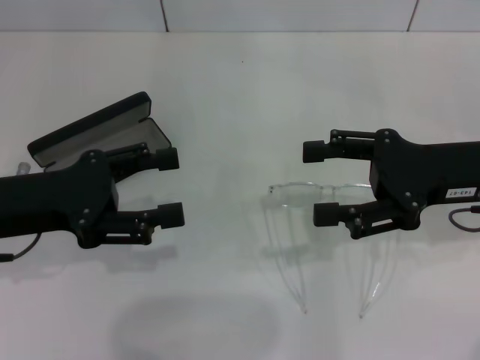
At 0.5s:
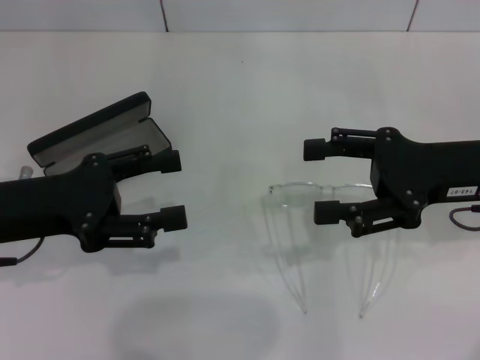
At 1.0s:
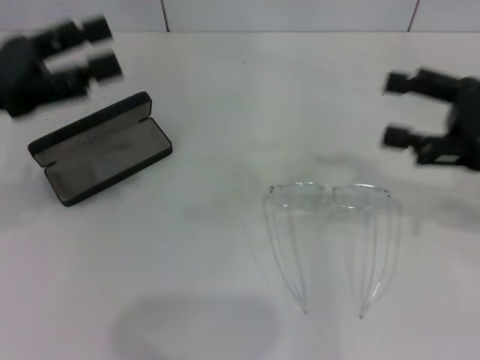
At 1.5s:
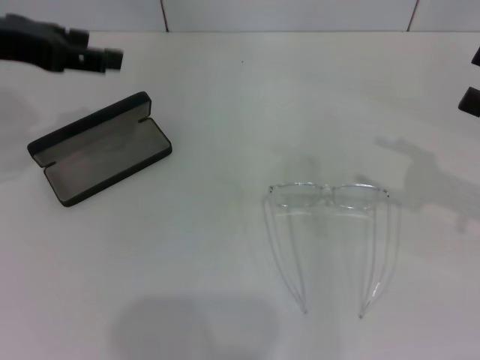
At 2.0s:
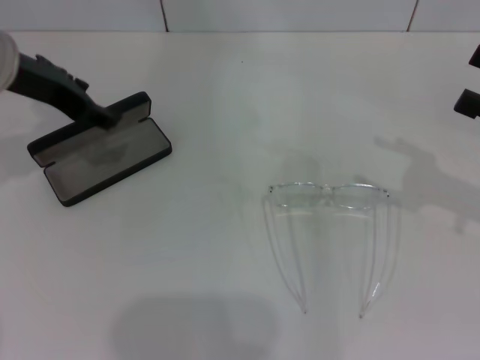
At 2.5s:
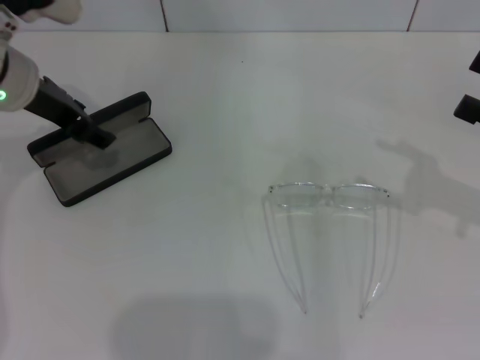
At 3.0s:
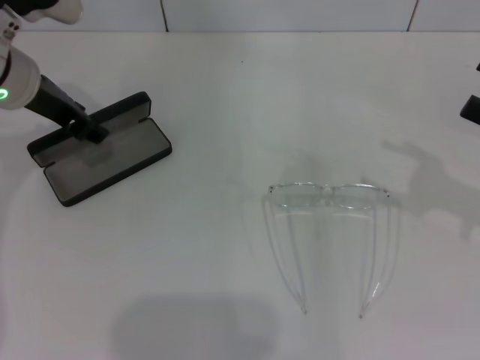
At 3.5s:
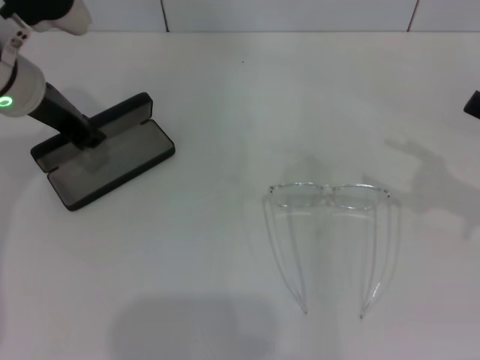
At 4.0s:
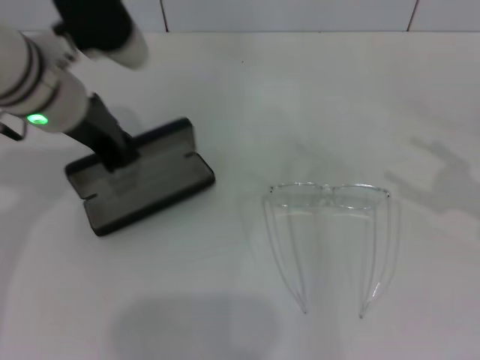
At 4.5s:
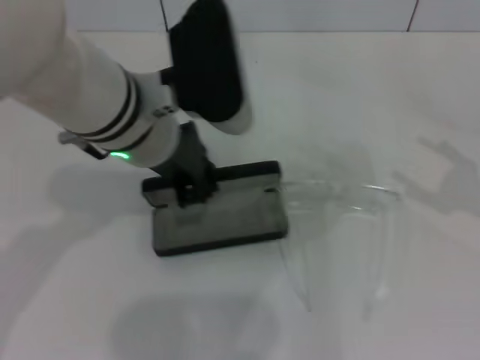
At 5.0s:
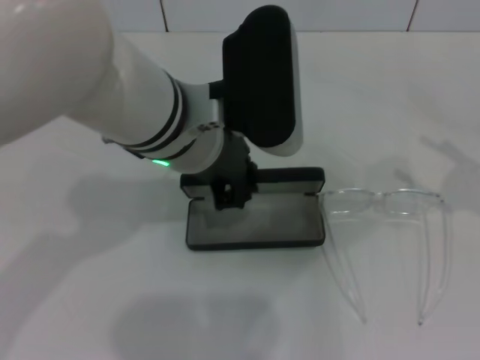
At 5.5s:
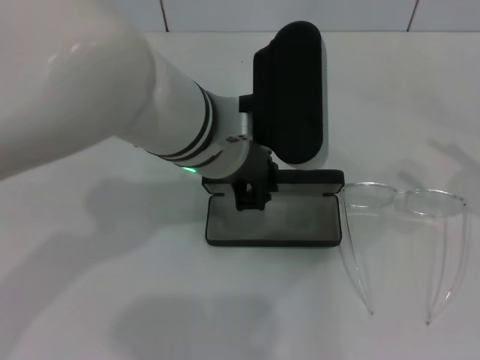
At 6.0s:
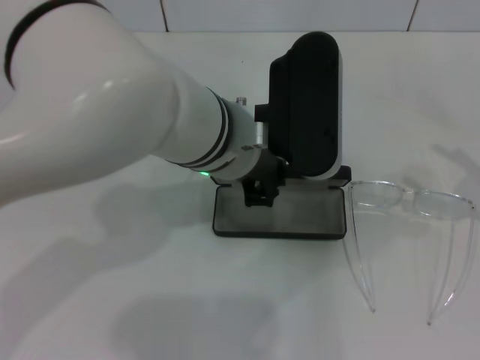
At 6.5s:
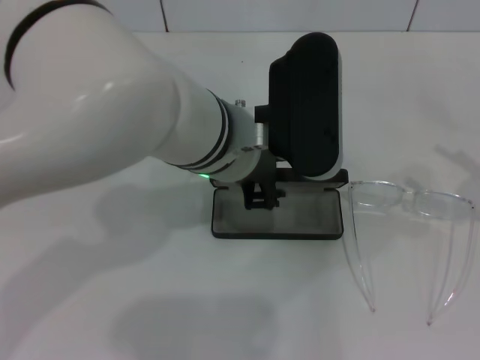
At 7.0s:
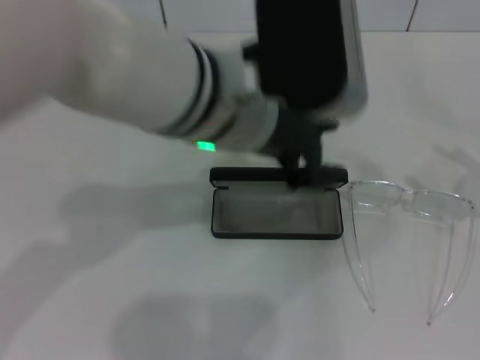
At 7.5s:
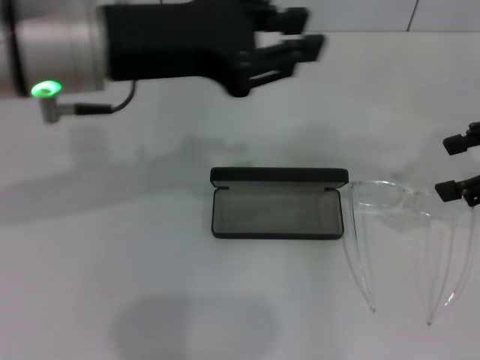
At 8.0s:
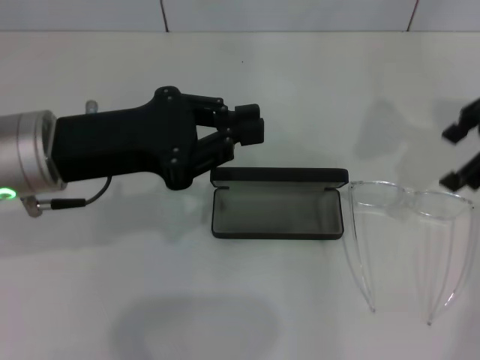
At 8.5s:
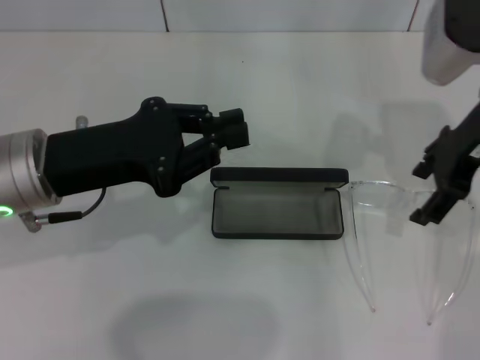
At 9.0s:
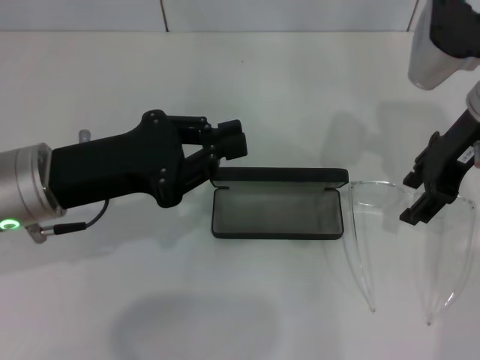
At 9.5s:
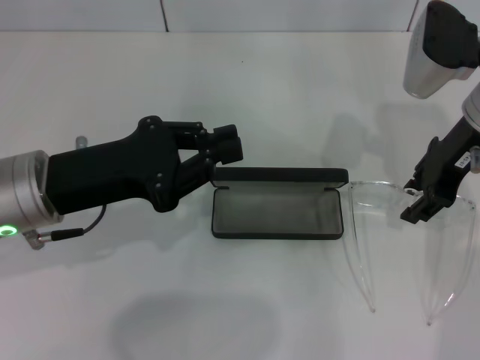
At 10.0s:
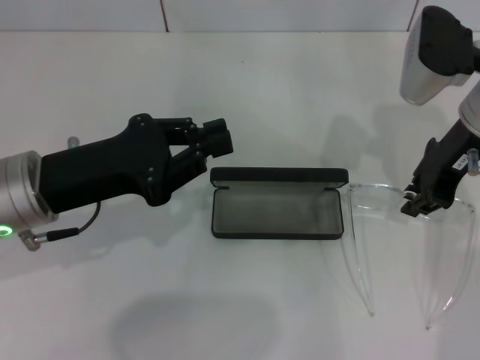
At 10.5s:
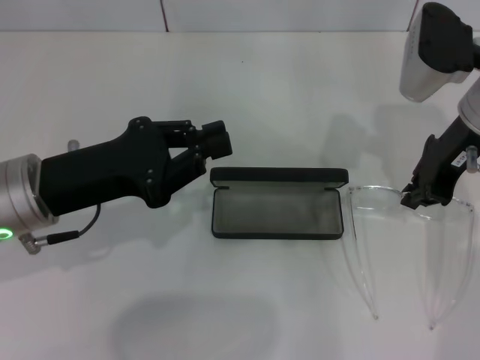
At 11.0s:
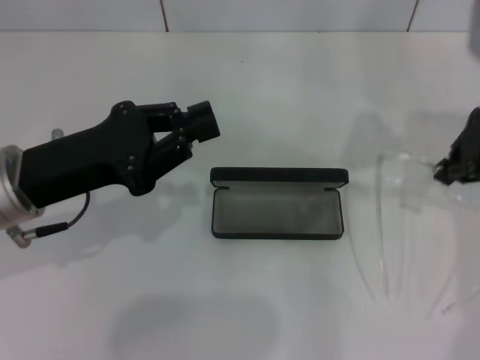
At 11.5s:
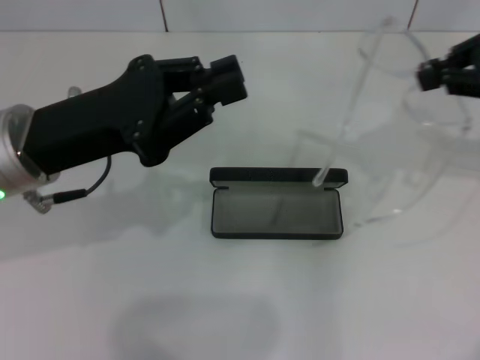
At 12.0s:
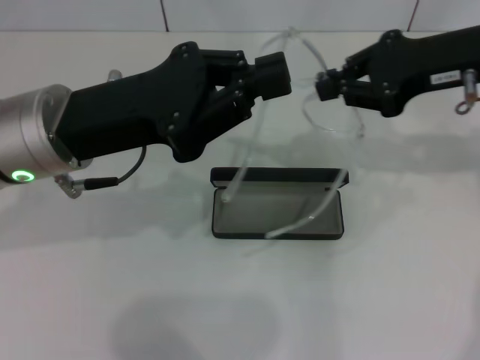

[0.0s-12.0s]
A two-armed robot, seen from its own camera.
Step, 0.0s to 3.5s: Grab the glasses case with your left hand.
Step, 4.0s to 6.5s: Place the glasses case in the center of the table with your left hand.
Step, 7.0s to 10.5s: Grab the eyeglass frame with your right hand.
0.0s to 2.0s: The right gripper is displaced to the right by approximately 10 cm; the left gripper is displaced forward and upward by some 15 cm.
2.0s to 4.0s: The left gripper heads to the right, covering roughly 5 cm, and closes its fingers.
4.0s to 6.0s: The left gripper goes about 15 cm to the right.
6.0s to 8.0s: The right gripper heads upward, forward and to the left, covering roughly 20 cm. Meanwhile the left gripper heads to the left, covering some 15 cm.
8.0s to 10.0s: The right gripper shifts some 10 cm downward and to the left, and closes its fingers.
10.0s to 12.0s: The left gripper ends up approximately 5 cm from where it was, while the right gripper goes roughly 5 cm upward.

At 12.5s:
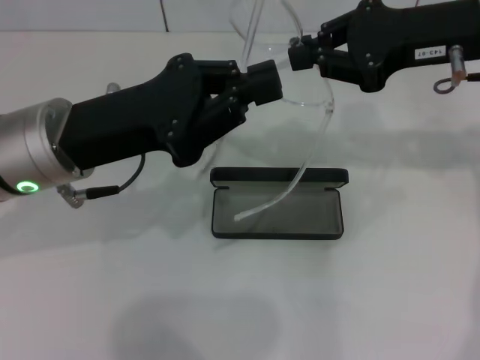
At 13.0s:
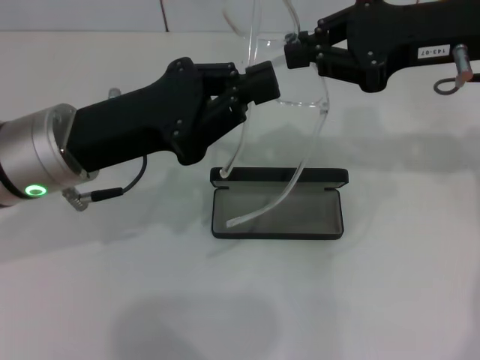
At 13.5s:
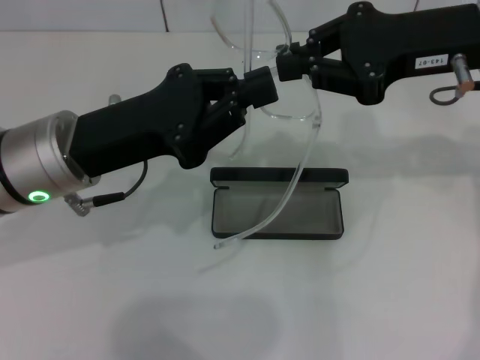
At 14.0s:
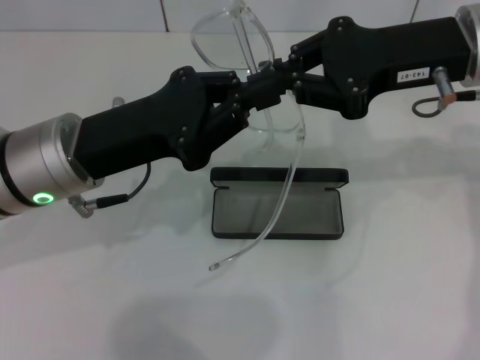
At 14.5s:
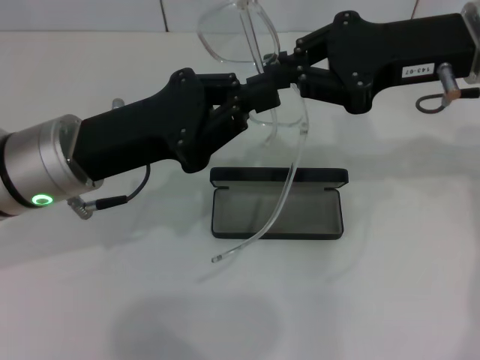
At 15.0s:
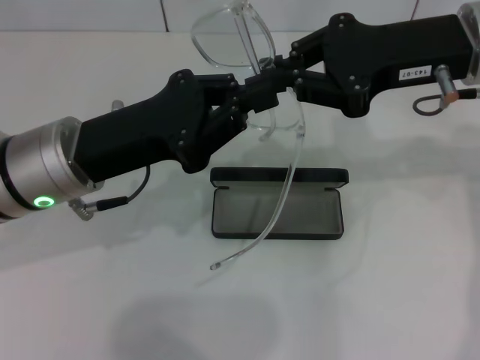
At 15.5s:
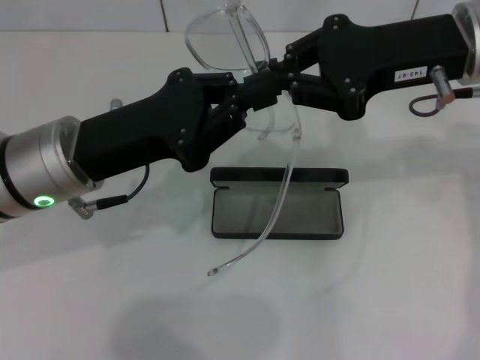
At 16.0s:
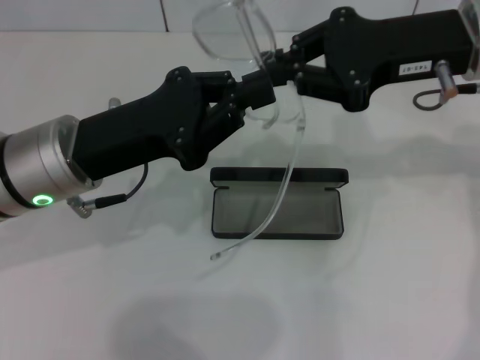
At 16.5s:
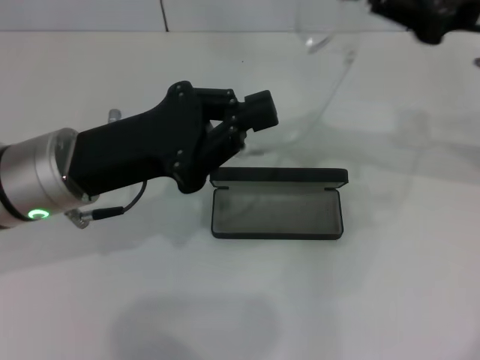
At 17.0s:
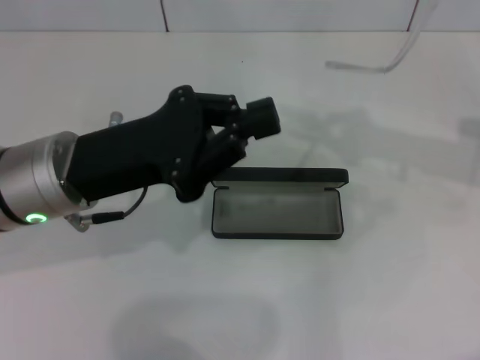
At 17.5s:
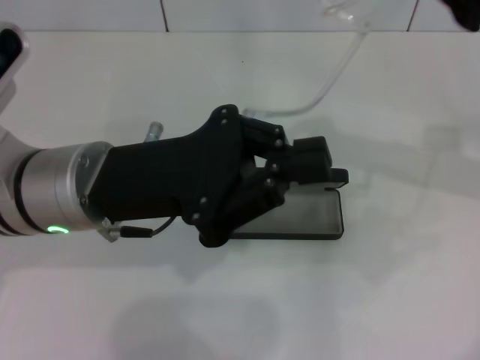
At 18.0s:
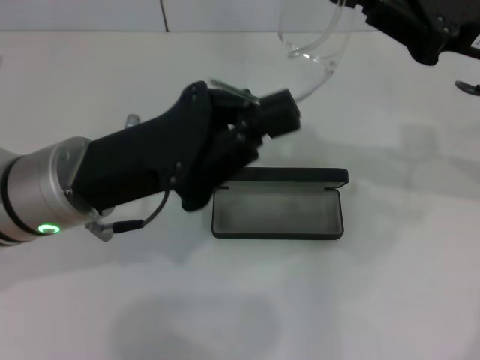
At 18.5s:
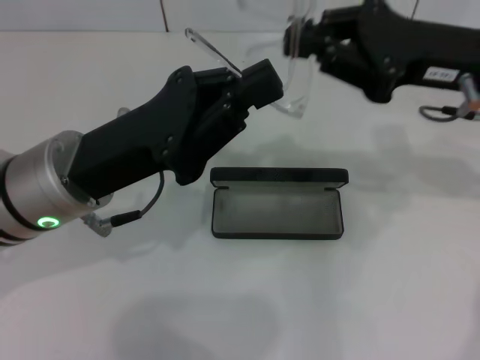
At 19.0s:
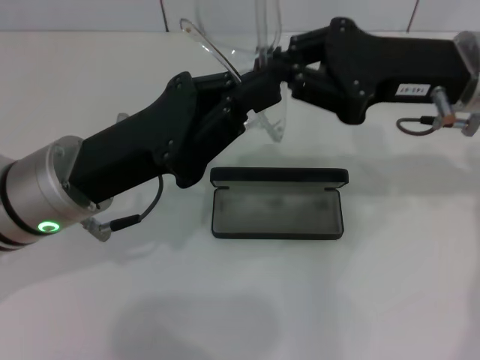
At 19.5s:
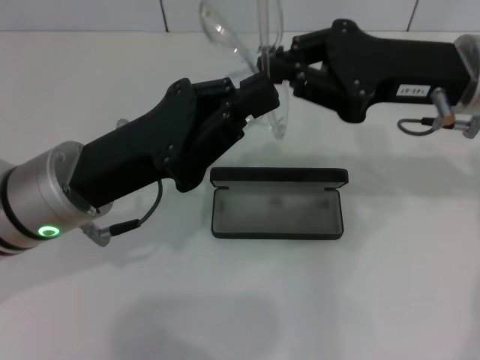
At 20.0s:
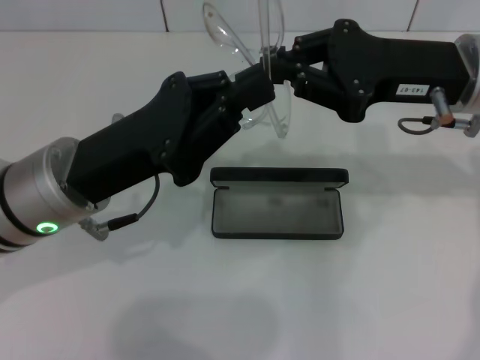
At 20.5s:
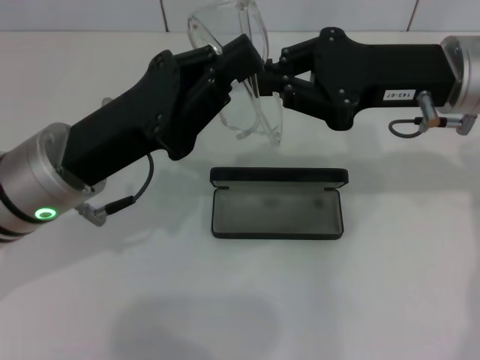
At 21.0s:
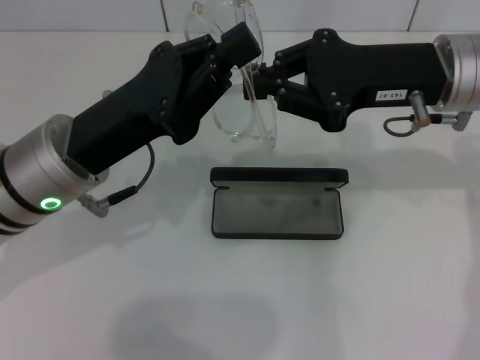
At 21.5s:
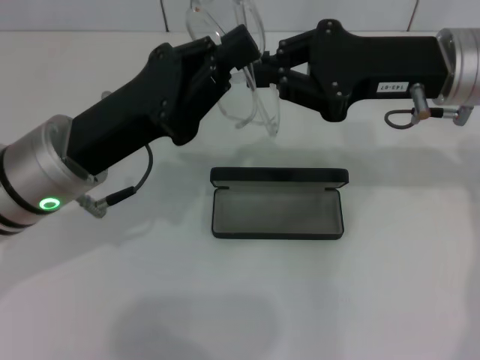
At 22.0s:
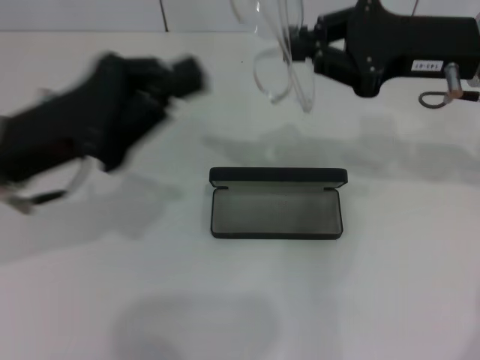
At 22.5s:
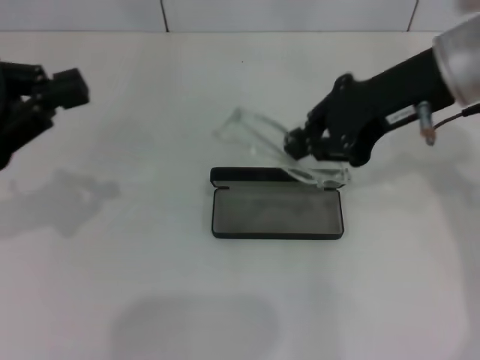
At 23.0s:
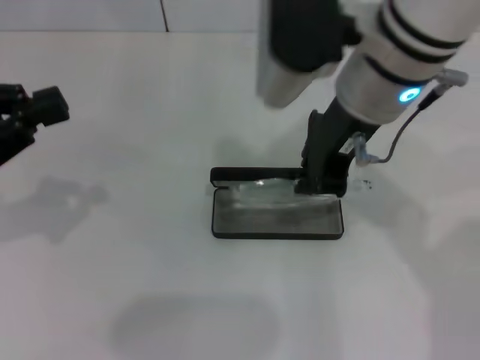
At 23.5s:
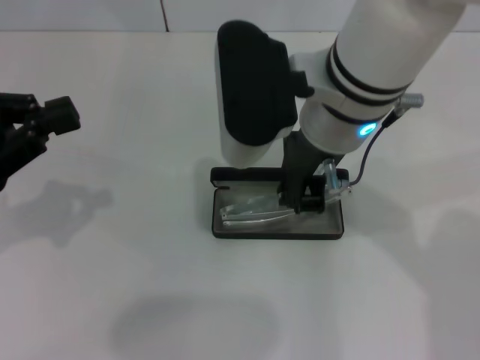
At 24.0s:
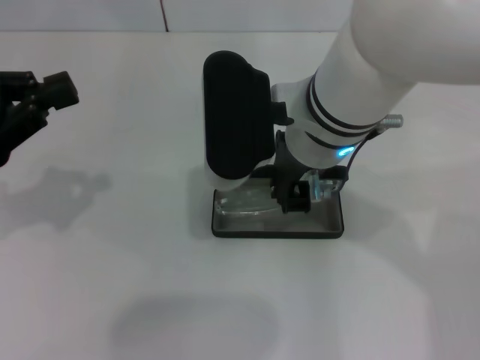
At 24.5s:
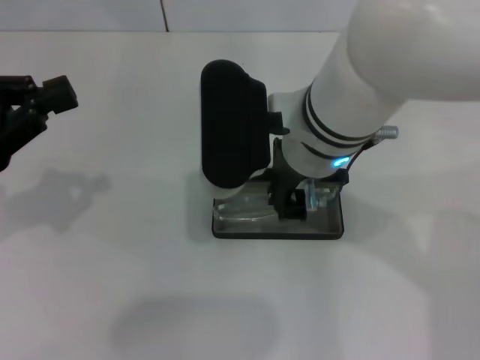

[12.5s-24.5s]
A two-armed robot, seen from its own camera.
Step, 12.5s to 19.5s: Fold the frame with your left hand.
12.5s to 14.5s: The grippers make only small movements.
14.5s to 16.5s: The right gripper shifts some 5 cm to the right.
16.5s to 18.5s: The right gripper shifts by some 5 cm.
18.5s to 20.5s: The grippers move only a little.
20.5s to 22.5s: The left gripper shifts roughly 15 cm to the left.
22.5s to 24.5s: The right gripper shifts about 15 cm to the left.

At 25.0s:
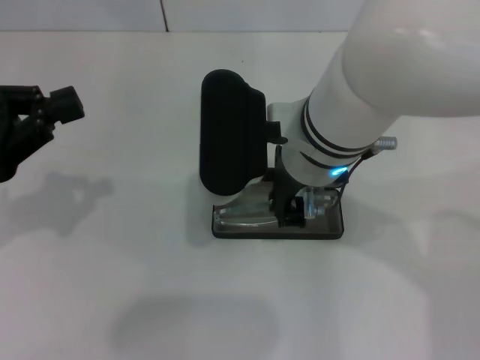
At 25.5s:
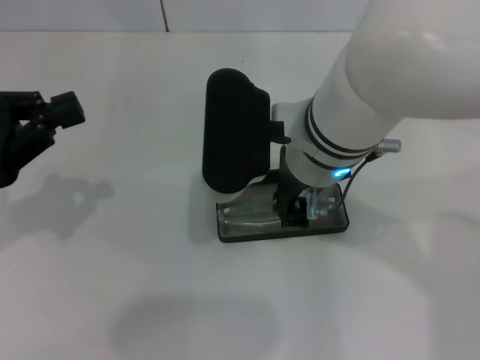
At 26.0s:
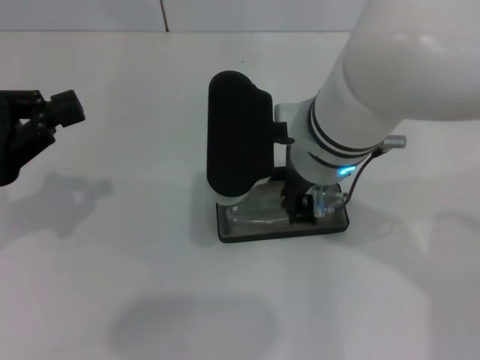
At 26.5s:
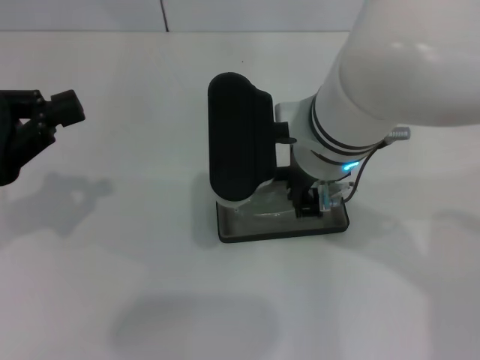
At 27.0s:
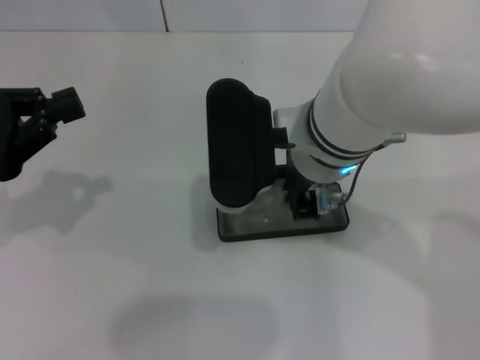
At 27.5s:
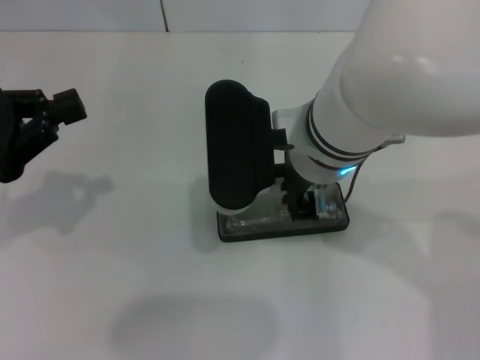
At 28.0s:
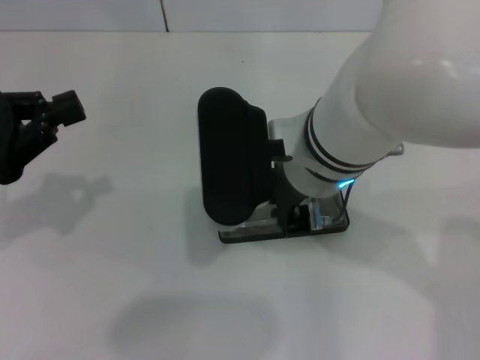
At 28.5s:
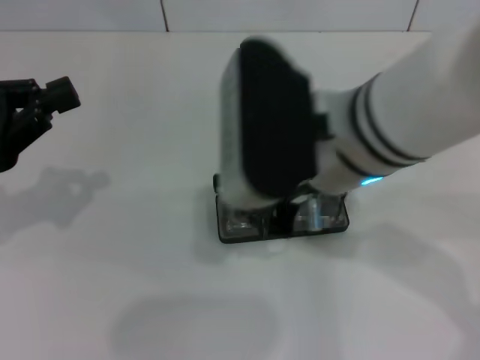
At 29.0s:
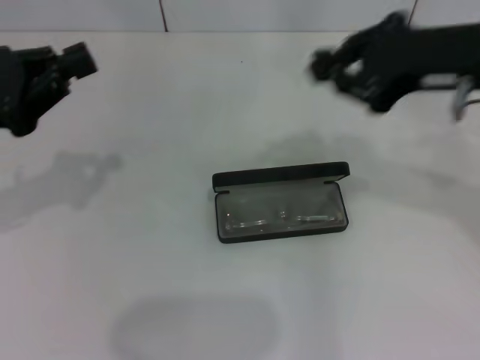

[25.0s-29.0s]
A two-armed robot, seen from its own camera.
Step, 25.0s to 28.0s: Put the glasses into the case with your right hand.
25.0s to 27.0s: The grippers stay close to where they were, moving slightly.
27.0s to 29.0s: The right gripper is displaced to the right and upward by some 20 cm.
